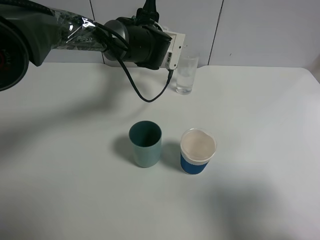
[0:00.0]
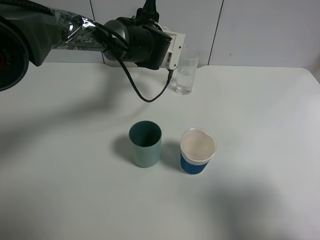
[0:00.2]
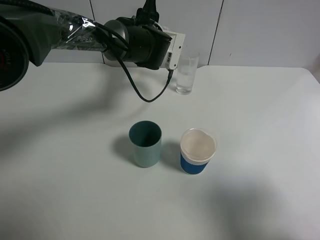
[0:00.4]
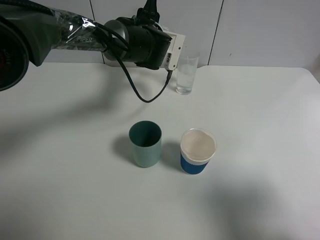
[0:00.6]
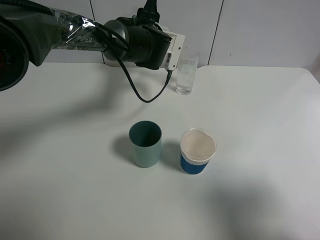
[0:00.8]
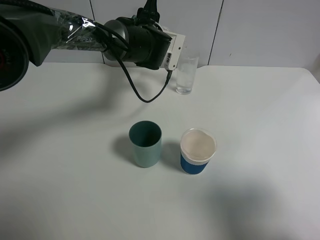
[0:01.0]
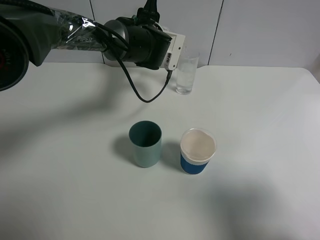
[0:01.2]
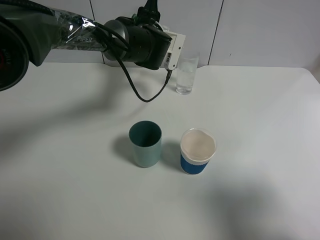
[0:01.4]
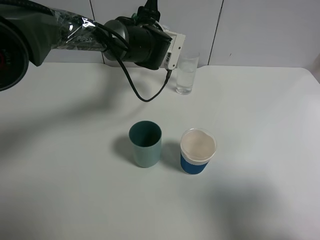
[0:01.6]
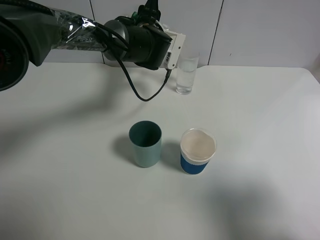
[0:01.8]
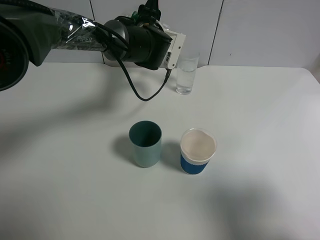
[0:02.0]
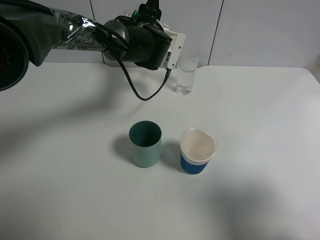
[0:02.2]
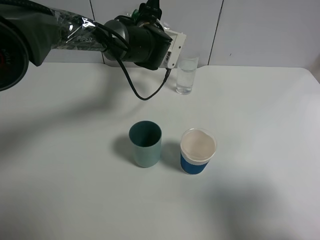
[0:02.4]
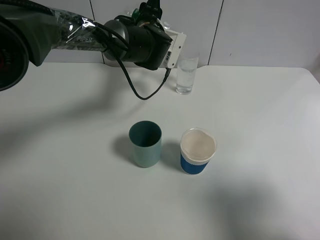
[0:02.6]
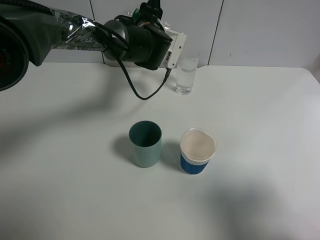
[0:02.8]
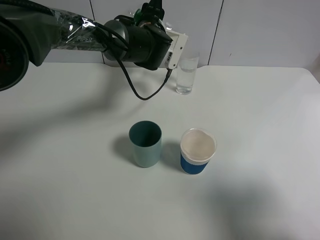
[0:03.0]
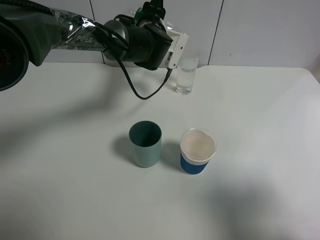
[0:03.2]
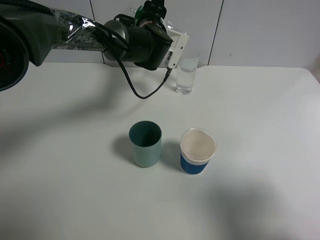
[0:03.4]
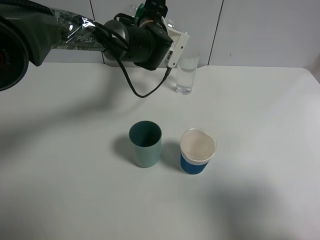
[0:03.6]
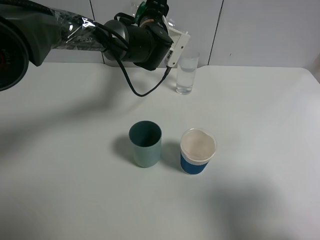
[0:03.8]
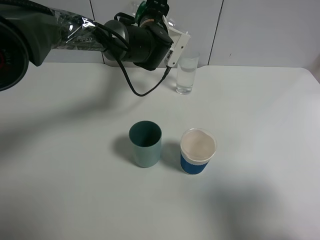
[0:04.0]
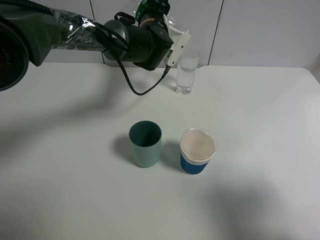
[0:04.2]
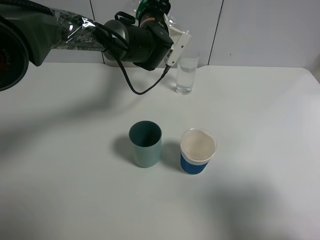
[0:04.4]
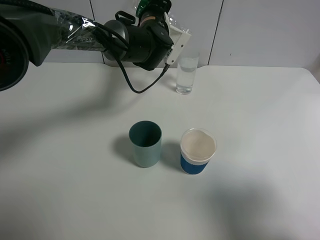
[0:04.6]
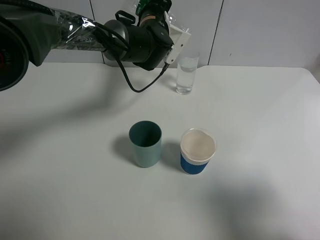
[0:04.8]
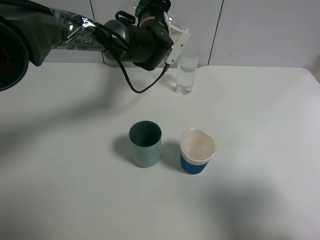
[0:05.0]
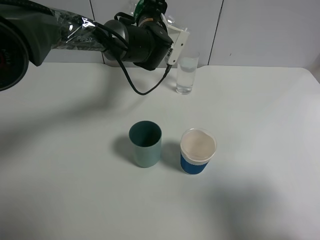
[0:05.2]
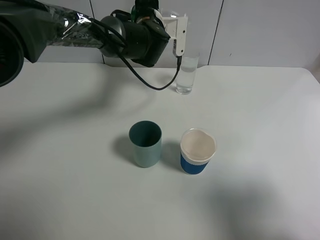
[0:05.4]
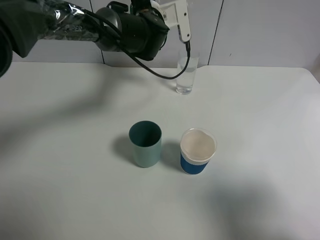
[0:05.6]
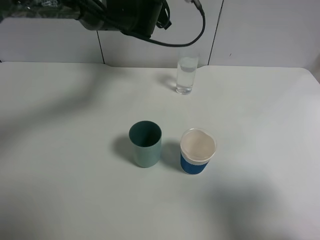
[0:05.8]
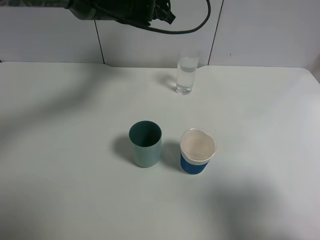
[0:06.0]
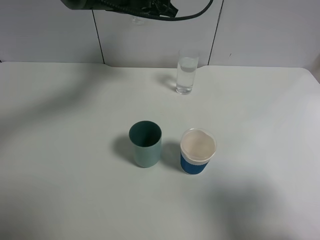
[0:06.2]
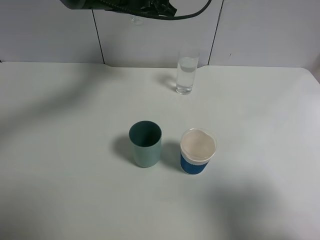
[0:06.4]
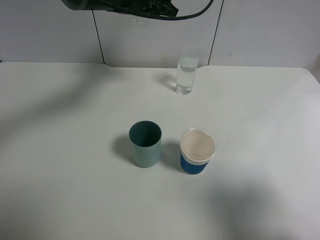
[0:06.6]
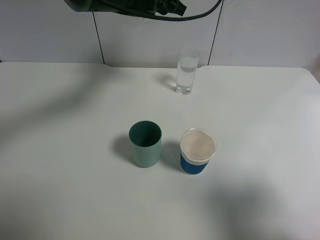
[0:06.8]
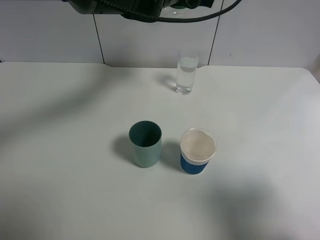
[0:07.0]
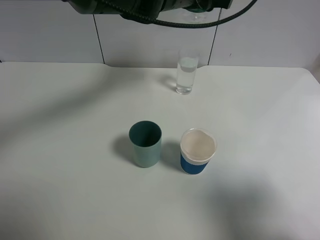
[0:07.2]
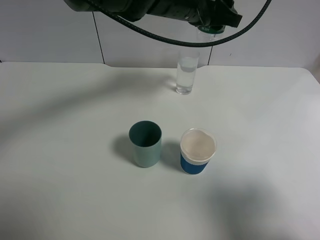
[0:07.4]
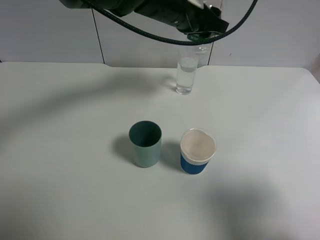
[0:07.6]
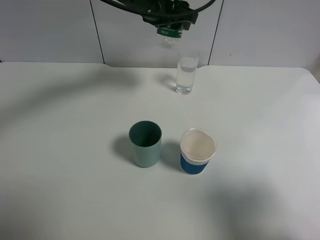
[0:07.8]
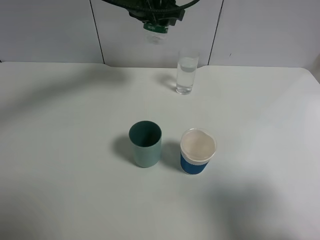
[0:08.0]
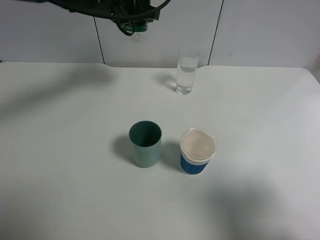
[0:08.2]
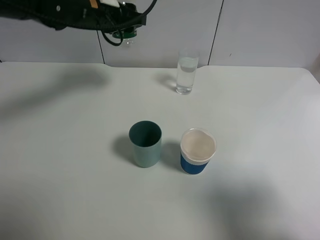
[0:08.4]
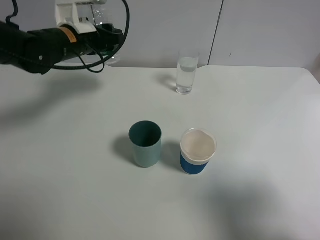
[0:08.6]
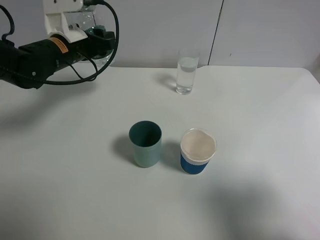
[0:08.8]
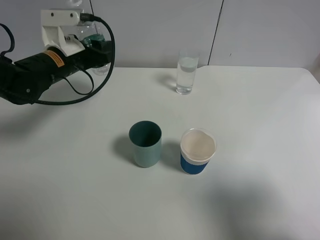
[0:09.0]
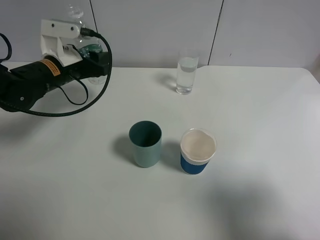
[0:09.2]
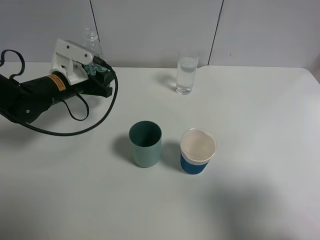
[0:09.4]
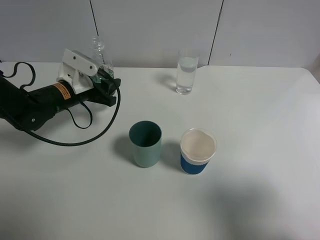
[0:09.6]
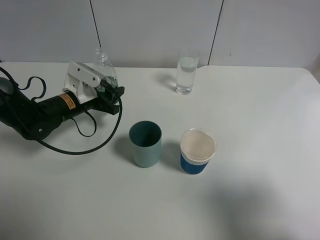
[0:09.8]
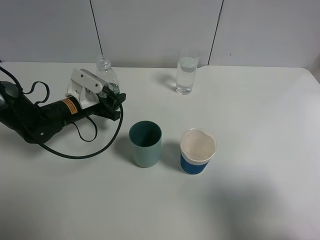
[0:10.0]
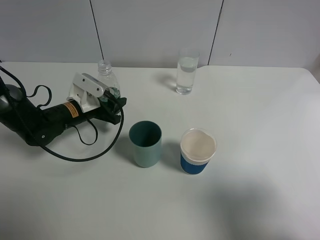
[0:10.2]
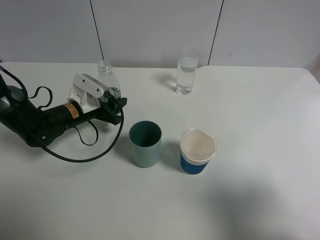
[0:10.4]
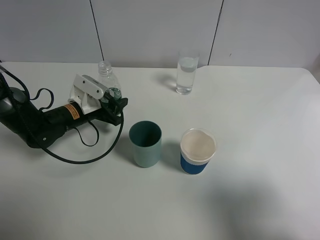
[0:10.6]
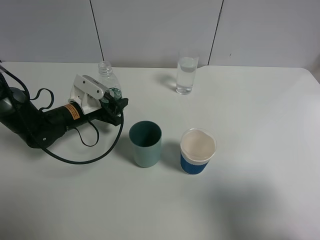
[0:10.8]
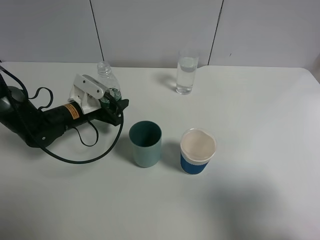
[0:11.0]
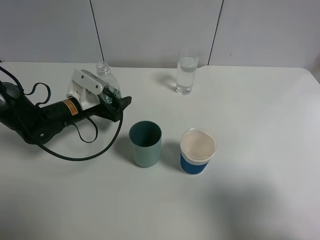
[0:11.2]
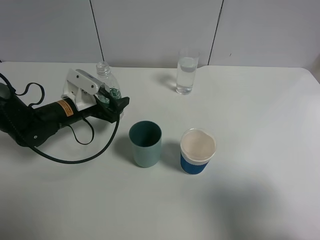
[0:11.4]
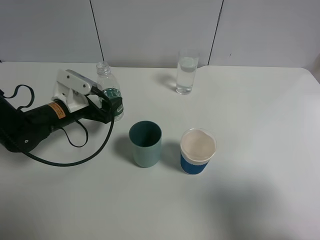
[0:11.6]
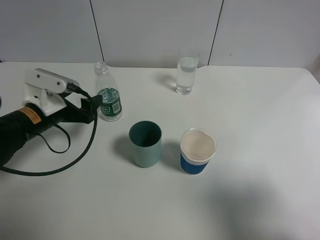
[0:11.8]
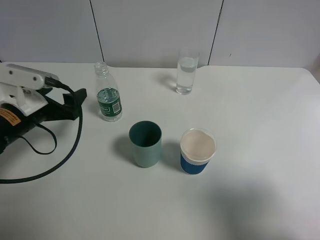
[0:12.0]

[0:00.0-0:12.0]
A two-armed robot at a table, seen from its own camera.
Task of the whole recording: use a gripper to hold the bottle of the drink and pour it into a random cup.
Step, 0:00.0 to 0:05.2: Pour the mineral water into the glass with the left gripper.
Step, 0:05.4 to 0:11.6: Place the mineral water bottle on the table with the left gripper.
0:00.0 to 0:01.6: The two grippers keep their place.
0:01.6 to 0:03.0: Both grippers stay about where they are.
0:03.0 to 0:04.4: The grippers stay close to where they were, moving slightly.
0:04.4 to 0:06.0: The left gripper goes about 5 cm upward.
0:06.0 to 0:07.6: The left gripper shifts about 5 cm to the right.
0:07.6 to 0:09.0: The left gripper travels to the left and downward by approximately 20 cm.
0:09.0 to 0:10.4: The left gripper shifts some 10 cm downward.
0:10.4 to 0:12.0: The left gripper shifts approximately 15 cm backward, upward and to the left, and opens.

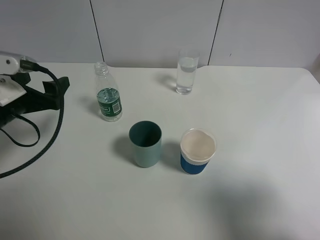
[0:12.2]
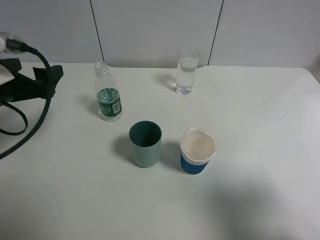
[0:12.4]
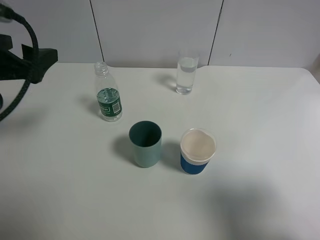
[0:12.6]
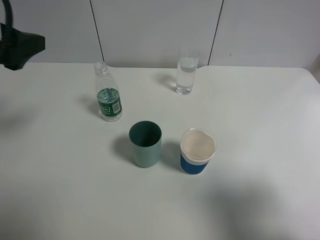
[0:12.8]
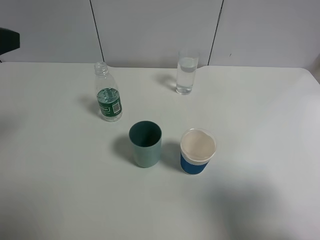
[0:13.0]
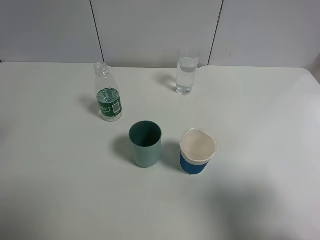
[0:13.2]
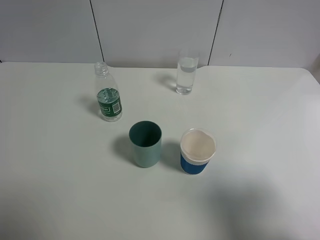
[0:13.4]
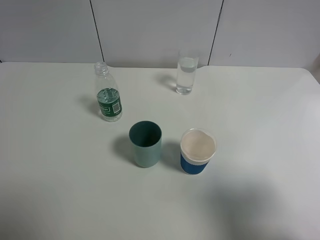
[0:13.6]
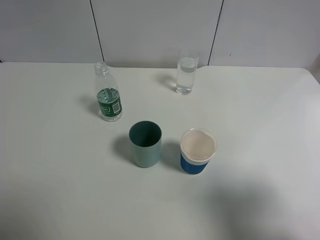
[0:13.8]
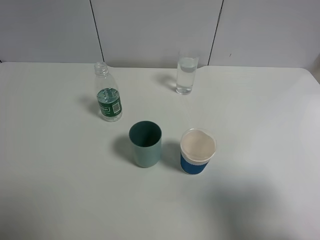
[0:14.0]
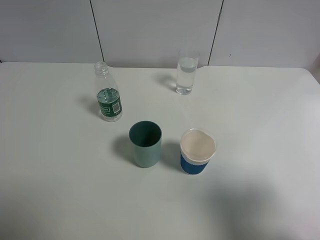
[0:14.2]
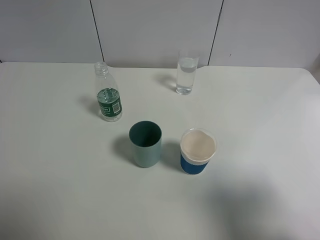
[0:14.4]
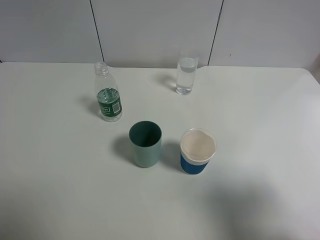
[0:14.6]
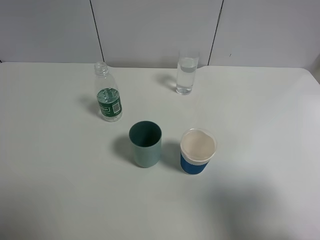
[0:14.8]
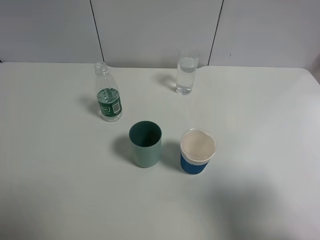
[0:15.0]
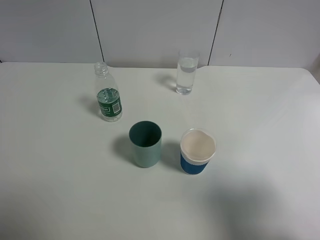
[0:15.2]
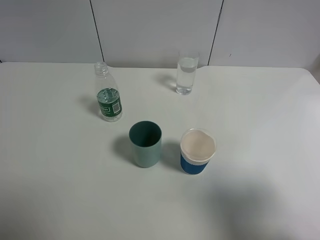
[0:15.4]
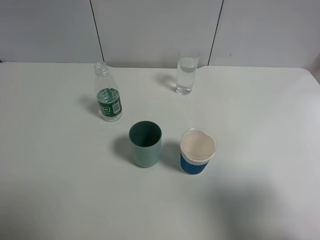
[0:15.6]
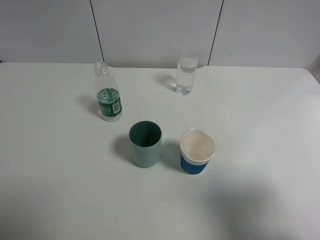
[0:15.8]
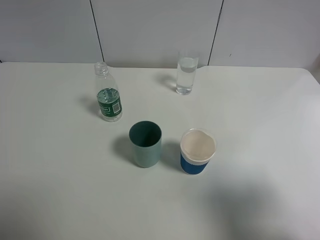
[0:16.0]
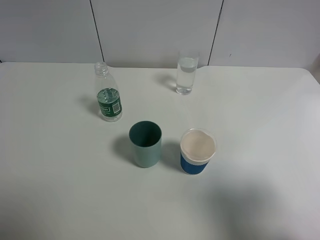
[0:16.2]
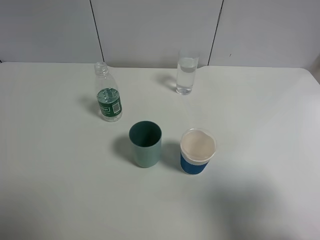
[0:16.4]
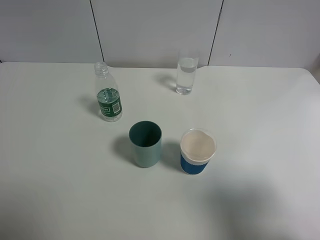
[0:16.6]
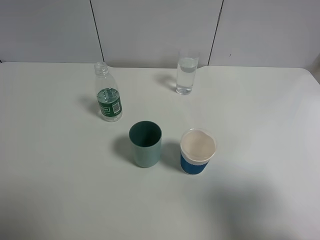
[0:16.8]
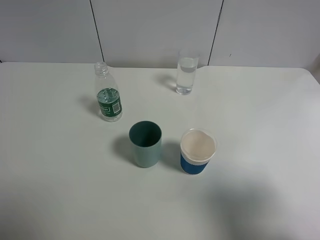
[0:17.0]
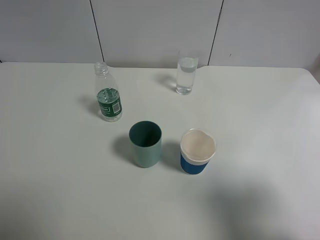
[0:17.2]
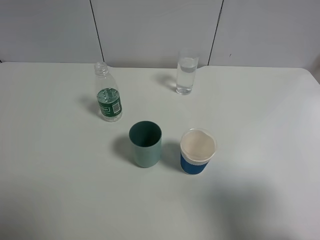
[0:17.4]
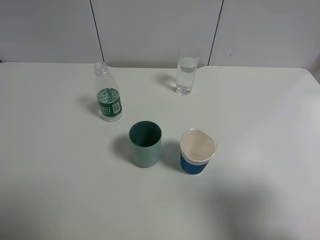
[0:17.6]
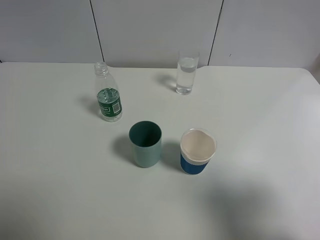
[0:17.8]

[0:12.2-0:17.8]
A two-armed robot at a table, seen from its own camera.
Task of the whole recording: use a gripper to hold the bottle of the drink and pour it into a random cup.
0:12.2 to 0:13.6: The left gripper shifts roughly 20 cm upward and backward.
0:15.0 to 0:17.8: The two grippers keep their place.

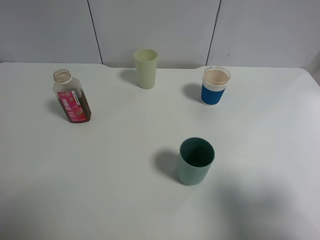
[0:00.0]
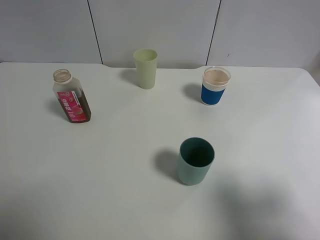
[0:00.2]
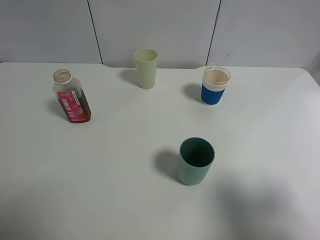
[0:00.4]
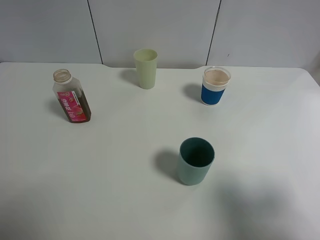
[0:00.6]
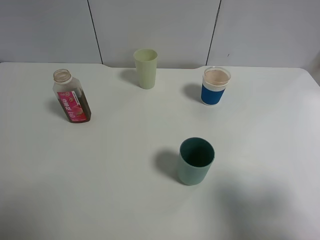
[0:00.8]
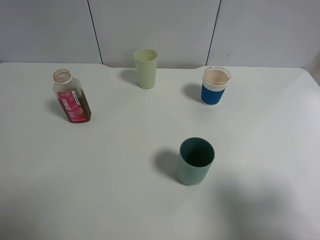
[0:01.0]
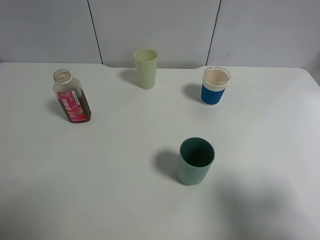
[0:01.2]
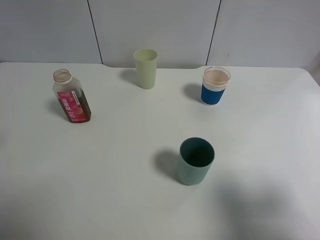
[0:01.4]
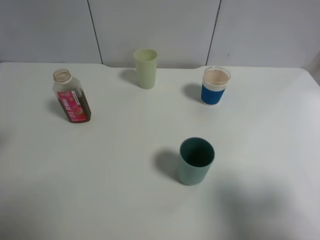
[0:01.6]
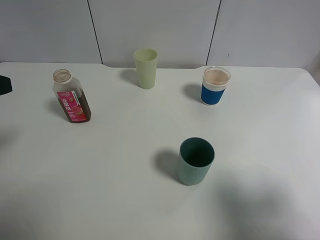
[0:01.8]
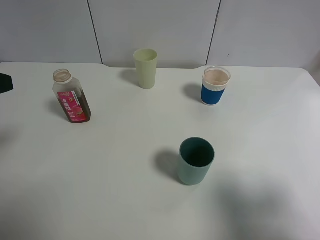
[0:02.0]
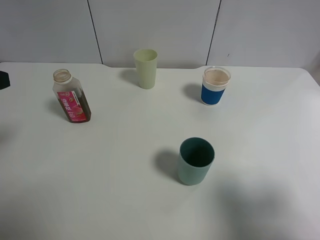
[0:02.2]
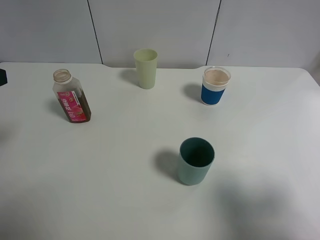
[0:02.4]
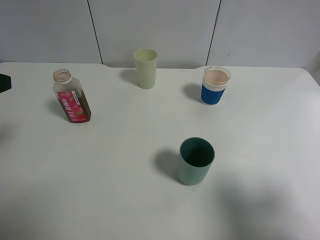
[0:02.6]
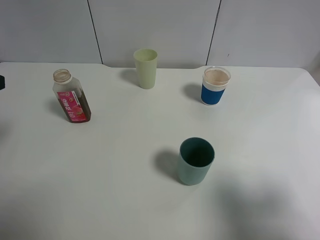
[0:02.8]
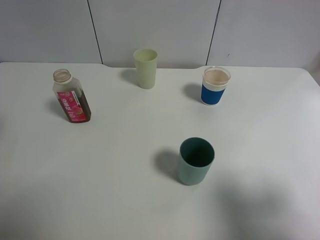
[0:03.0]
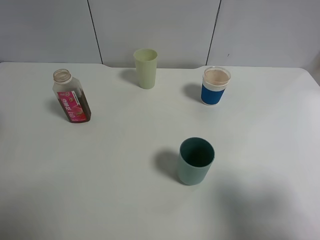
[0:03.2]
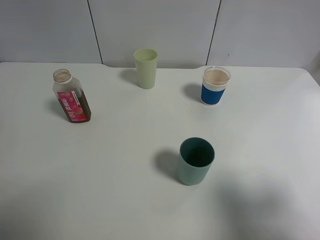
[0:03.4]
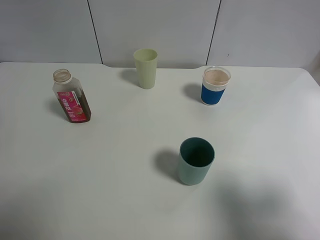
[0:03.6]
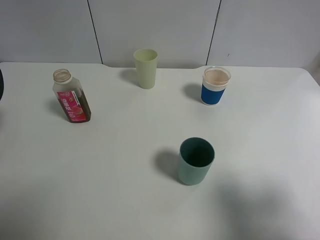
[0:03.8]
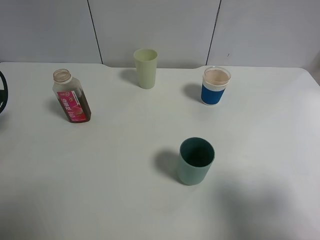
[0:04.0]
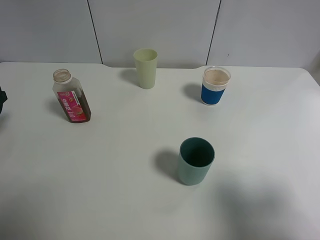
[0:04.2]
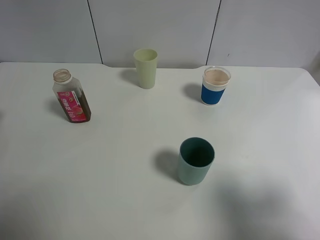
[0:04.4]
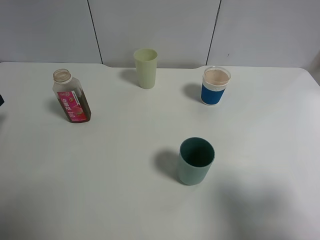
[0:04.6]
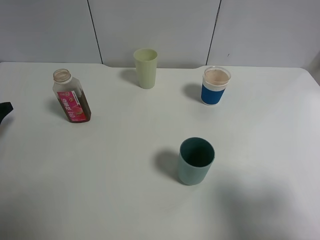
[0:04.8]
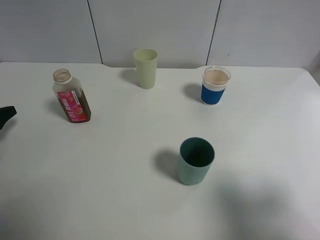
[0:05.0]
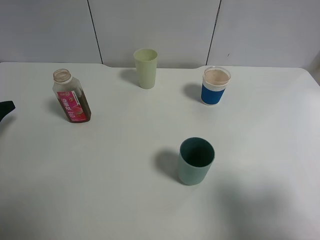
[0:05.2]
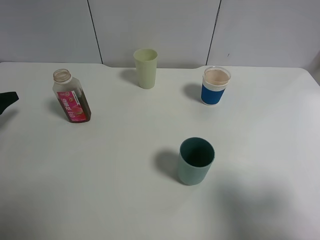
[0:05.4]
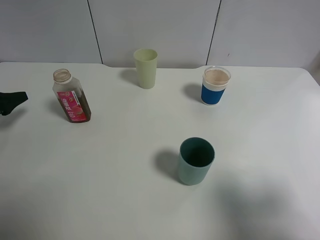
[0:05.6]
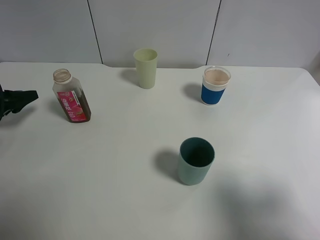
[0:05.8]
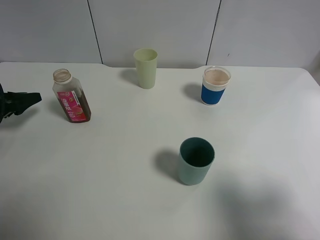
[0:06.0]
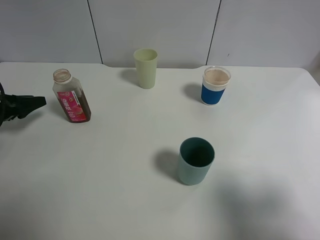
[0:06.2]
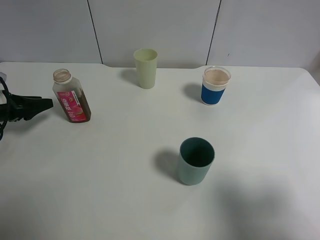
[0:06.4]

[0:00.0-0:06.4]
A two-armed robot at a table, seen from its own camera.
Task of the whole recording: use a gripper to hold the bottle of the drink and pour it into a random cup.
0:04.8 to 0:06.4: The left gripper travels forward and to the right by roughly 10 cm.
